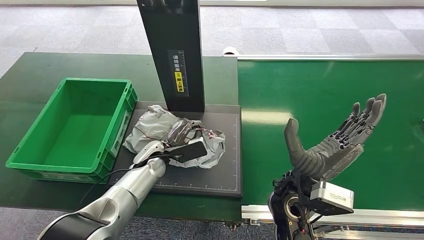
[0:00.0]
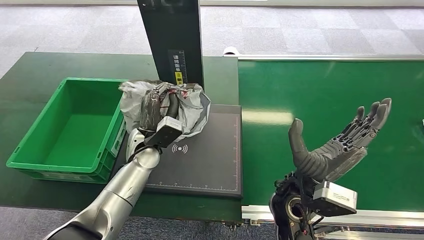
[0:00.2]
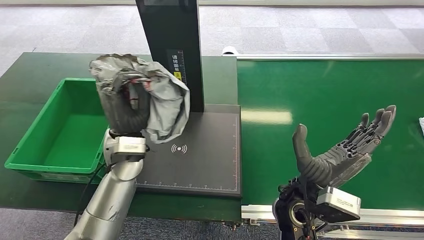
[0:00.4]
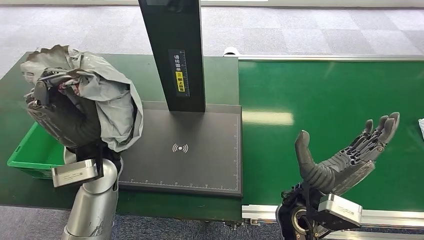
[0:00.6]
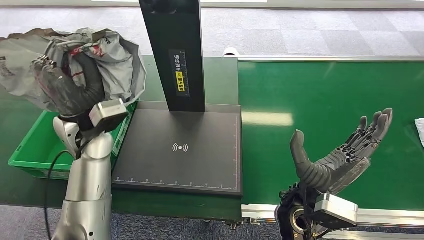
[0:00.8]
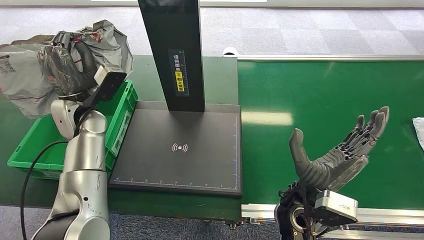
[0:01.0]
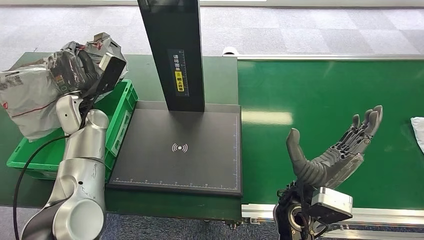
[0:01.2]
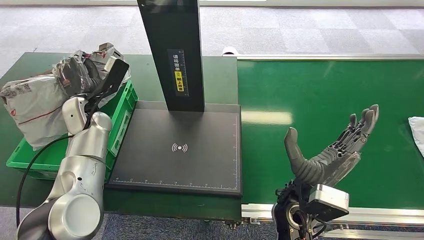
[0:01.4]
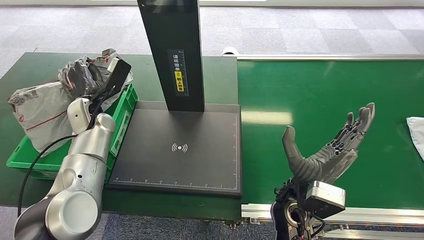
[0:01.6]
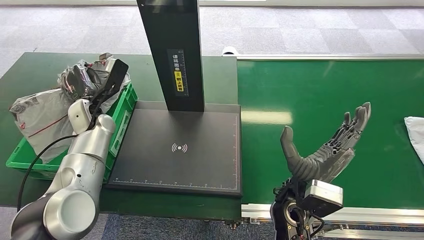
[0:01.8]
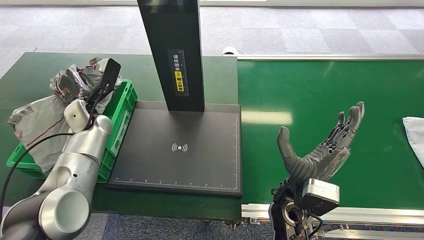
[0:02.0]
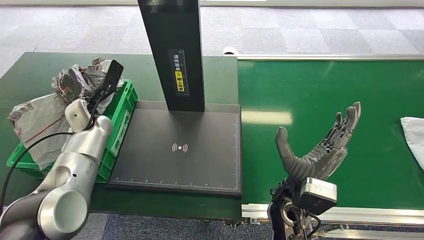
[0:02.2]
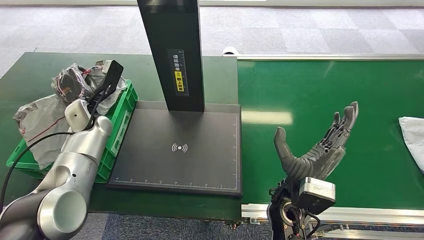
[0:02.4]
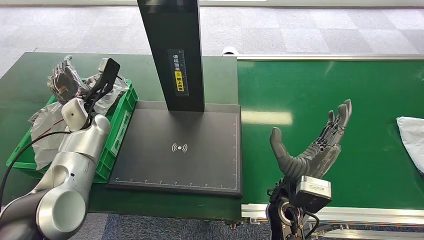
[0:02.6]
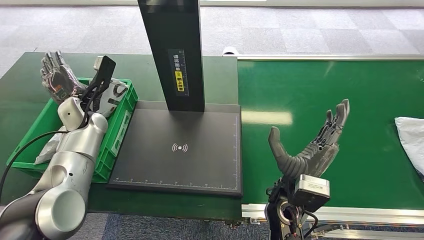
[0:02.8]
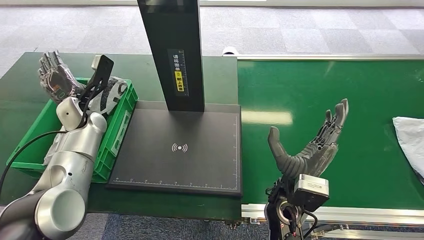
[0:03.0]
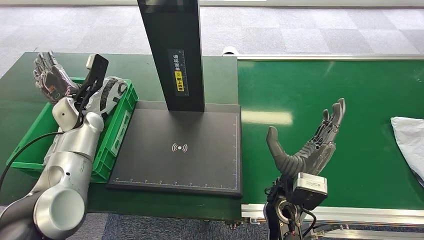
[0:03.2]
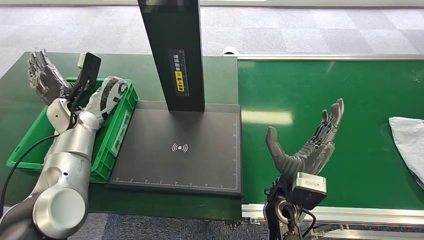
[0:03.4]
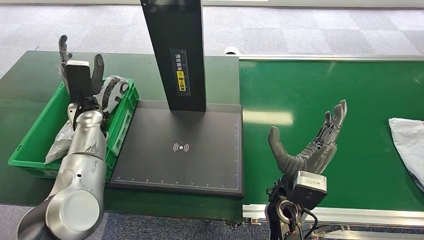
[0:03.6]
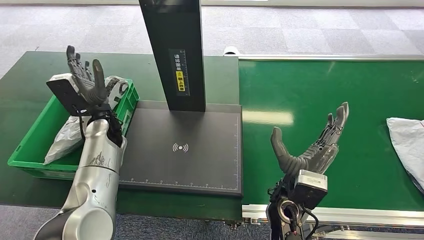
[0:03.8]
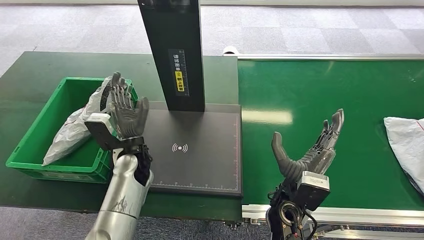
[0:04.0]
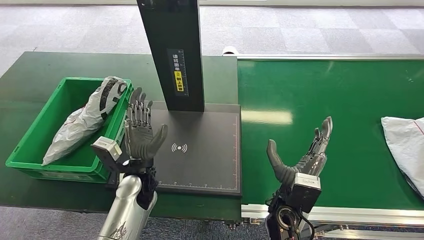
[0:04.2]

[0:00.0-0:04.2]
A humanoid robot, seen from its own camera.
Step, 0:01.0 to 0:04.2: Place the package into the parcel locker.

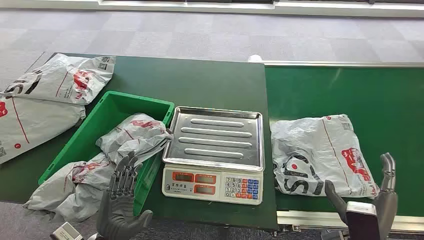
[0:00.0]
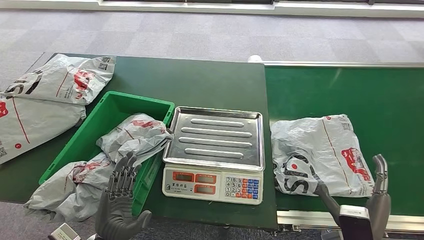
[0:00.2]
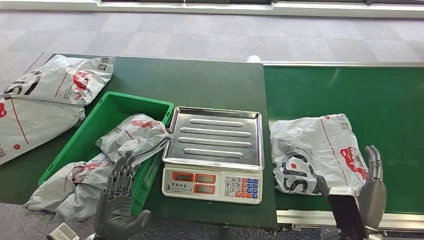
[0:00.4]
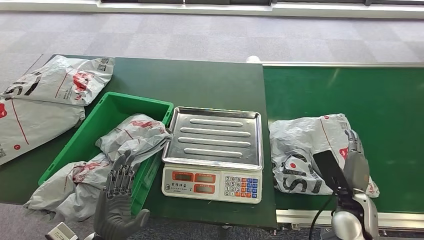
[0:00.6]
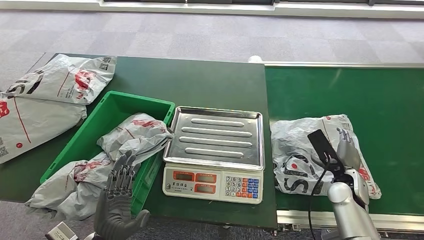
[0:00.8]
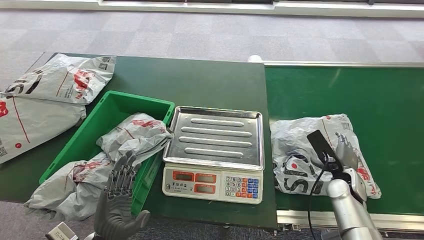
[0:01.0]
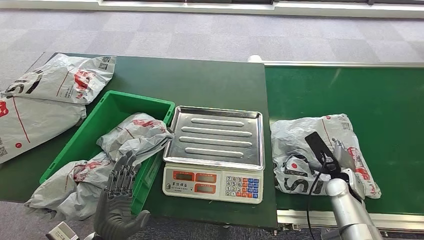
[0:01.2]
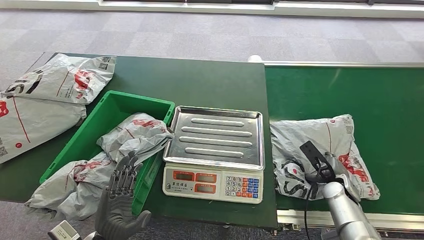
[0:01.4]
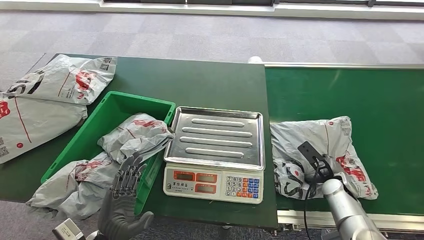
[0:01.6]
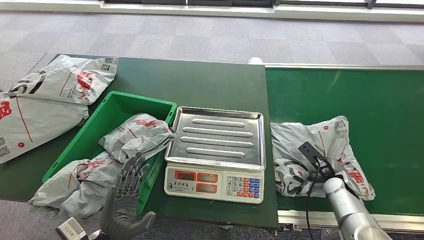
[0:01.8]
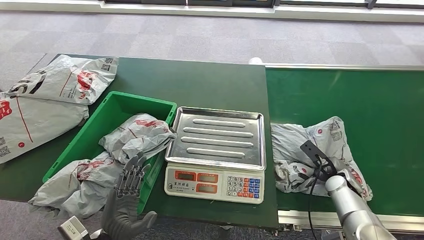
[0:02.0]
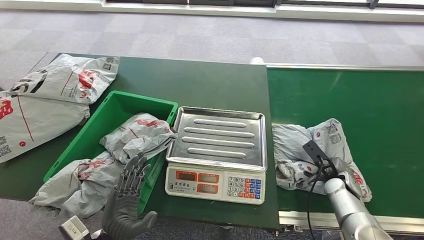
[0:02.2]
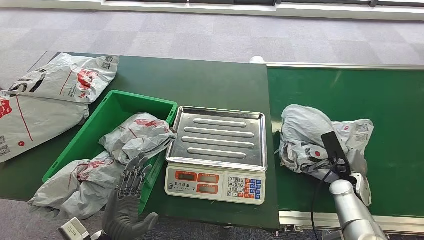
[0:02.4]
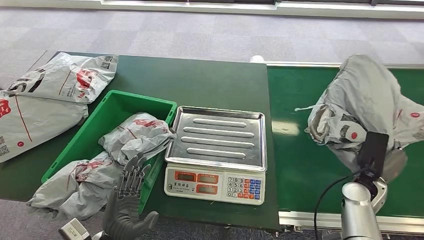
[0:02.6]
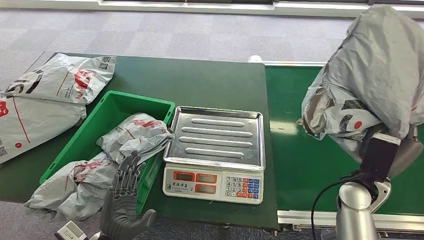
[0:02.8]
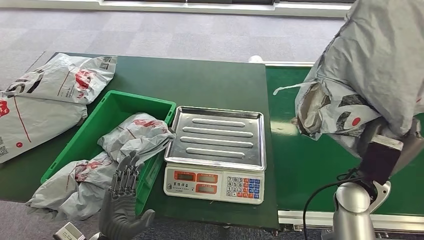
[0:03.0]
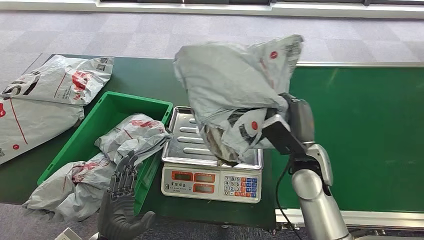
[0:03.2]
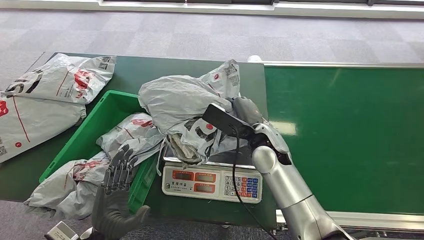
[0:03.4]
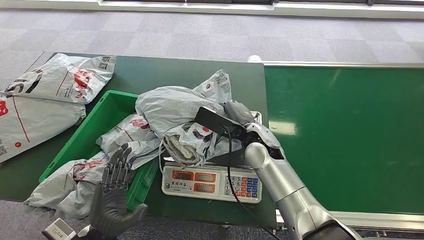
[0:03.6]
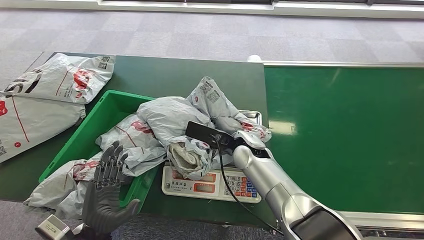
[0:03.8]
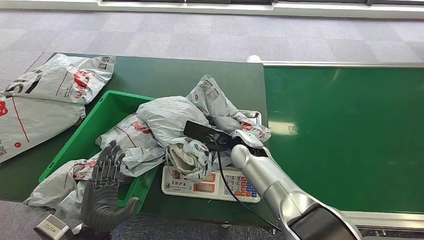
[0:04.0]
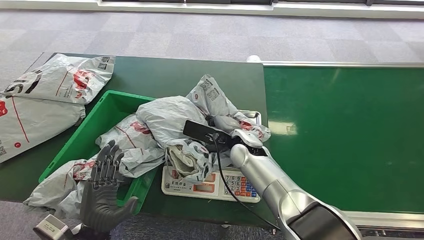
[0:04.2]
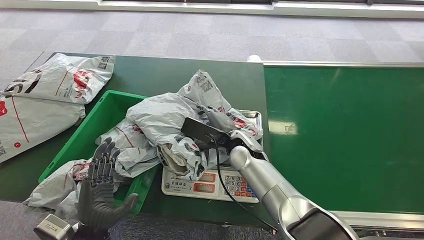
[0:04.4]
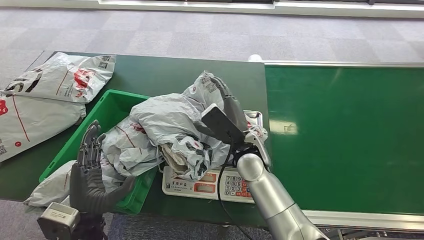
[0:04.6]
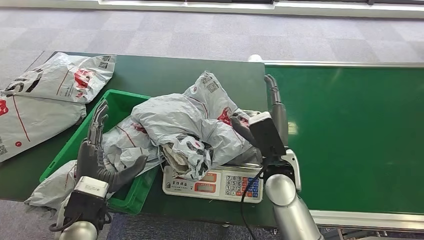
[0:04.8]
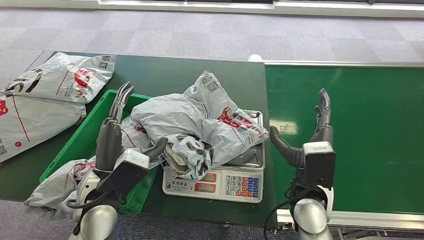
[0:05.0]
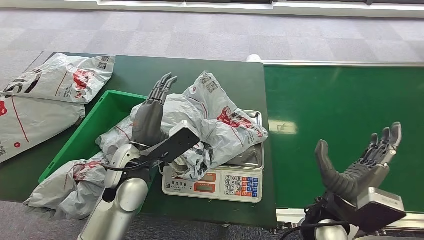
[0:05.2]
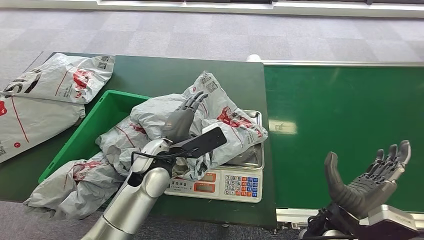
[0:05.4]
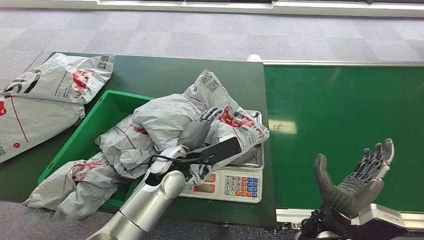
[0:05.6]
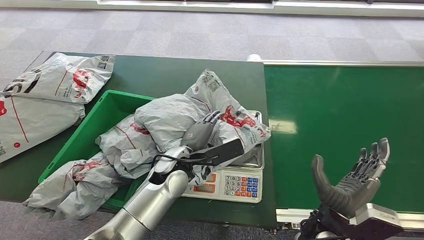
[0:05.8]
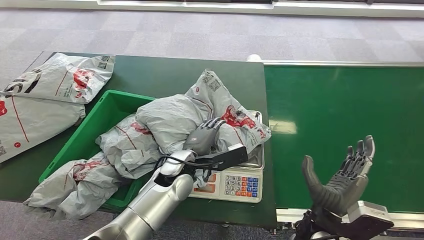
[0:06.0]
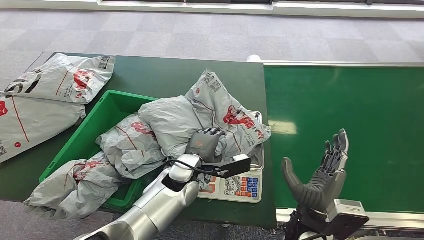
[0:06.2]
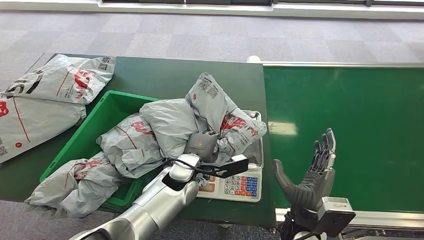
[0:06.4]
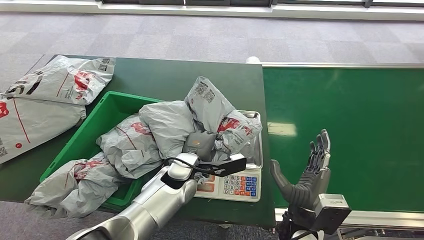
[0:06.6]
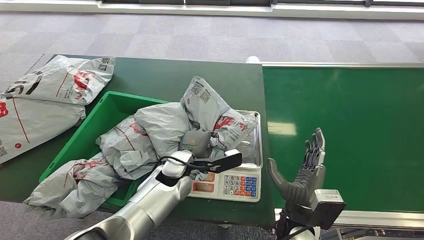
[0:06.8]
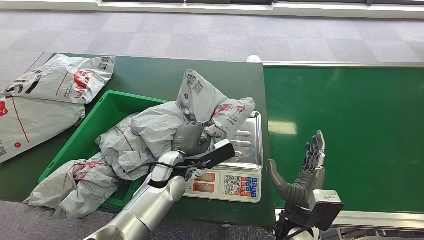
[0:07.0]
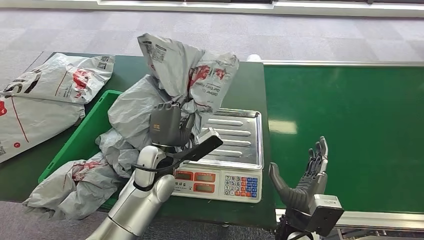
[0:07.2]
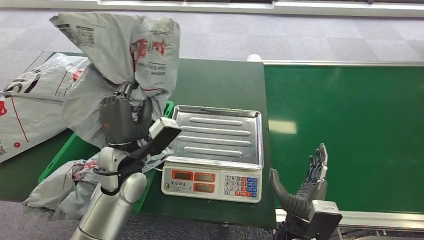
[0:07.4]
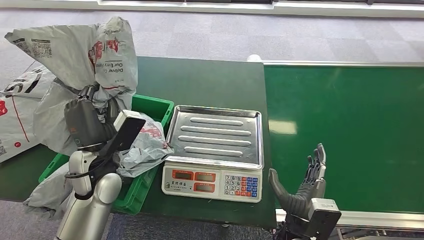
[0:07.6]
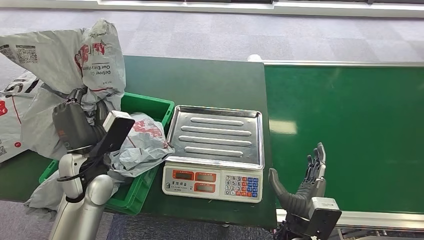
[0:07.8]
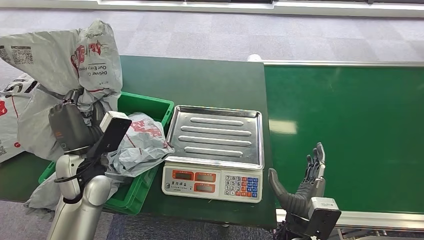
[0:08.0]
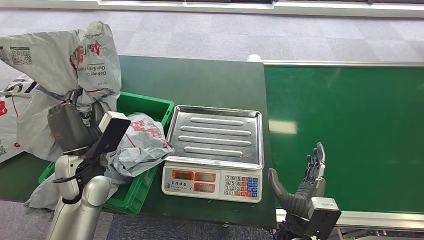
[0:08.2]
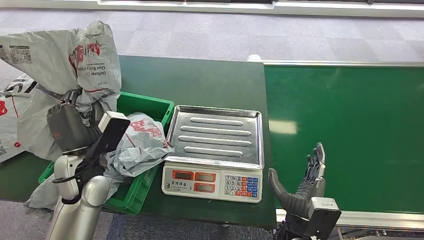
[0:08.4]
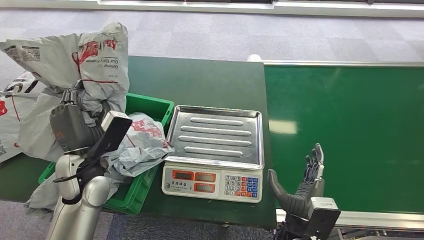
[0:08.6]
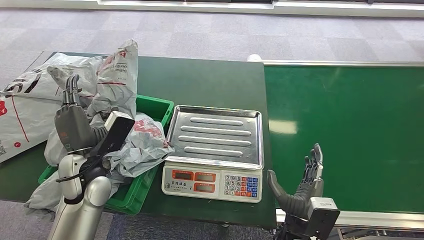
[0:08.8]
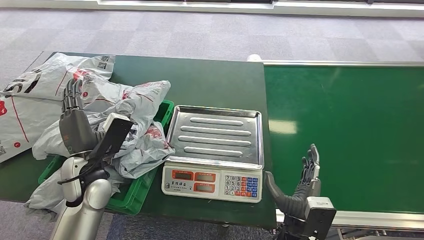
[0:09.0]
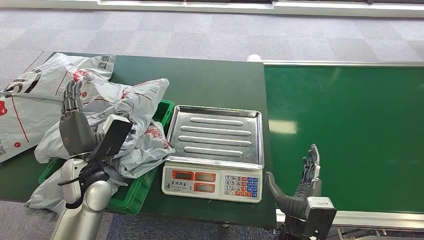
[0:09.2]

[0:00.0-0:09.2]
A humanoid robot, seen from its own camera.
Step, 0:00.0 to 0:03.2: Pick up the package from the conveyor belt.
Step, 0:03.4 to 0:06.0: Place the package onto the inbound machine.
Step, 0:06.4 to 0:08.4: Pick up the package from the inbound machine.
Step, 0:08.6 to 0:09.2: Place the package into the parcel locker.
0:07.6 to 0:09.2: The hands move only a little.

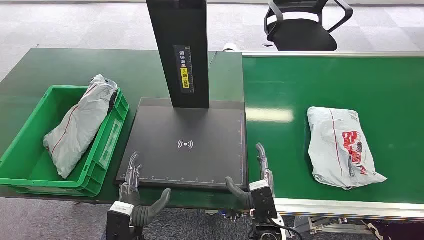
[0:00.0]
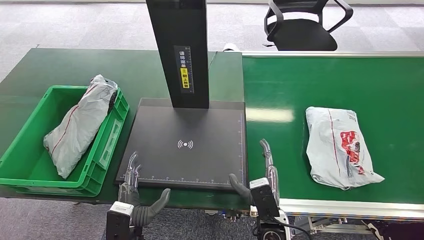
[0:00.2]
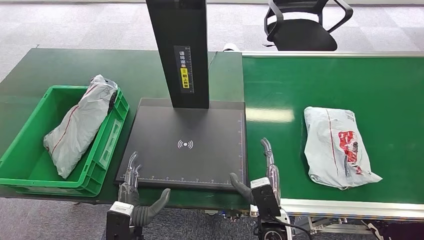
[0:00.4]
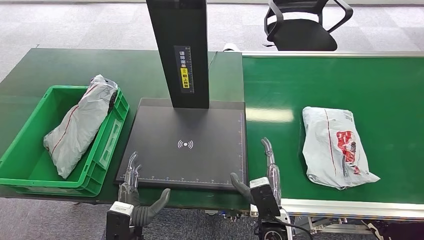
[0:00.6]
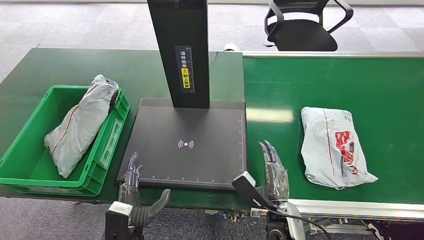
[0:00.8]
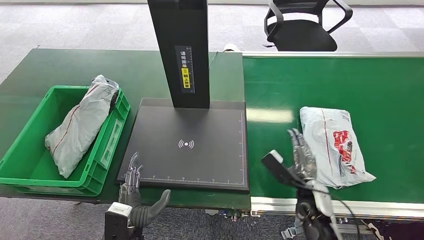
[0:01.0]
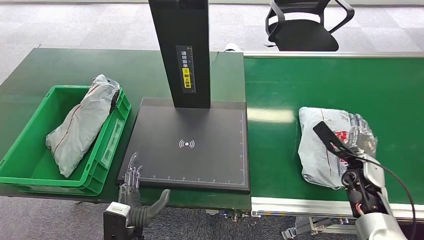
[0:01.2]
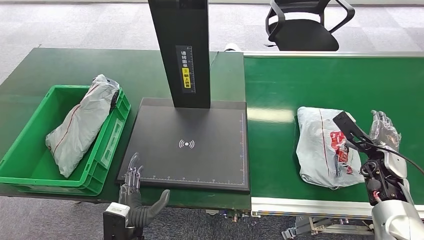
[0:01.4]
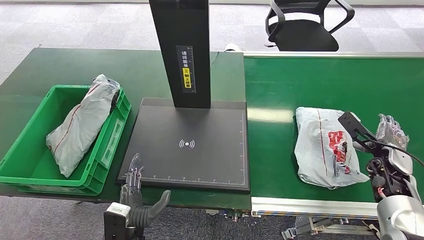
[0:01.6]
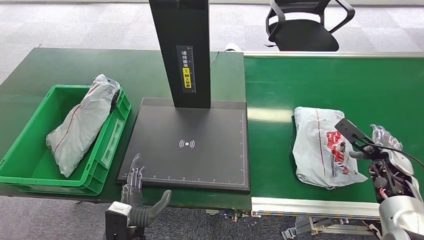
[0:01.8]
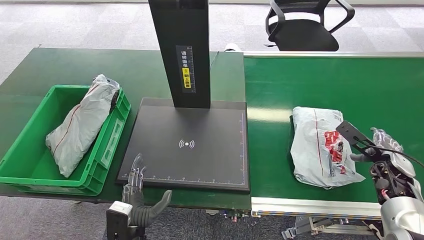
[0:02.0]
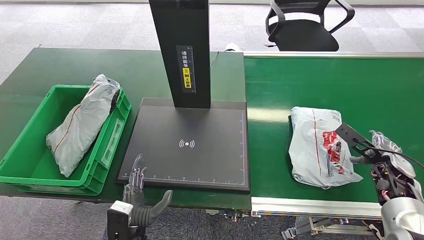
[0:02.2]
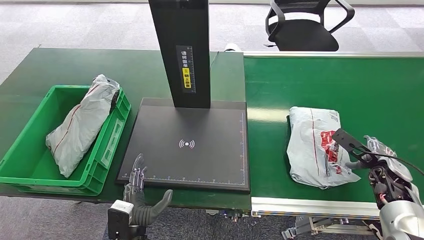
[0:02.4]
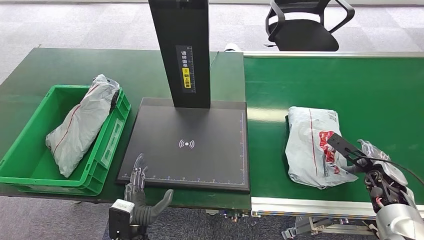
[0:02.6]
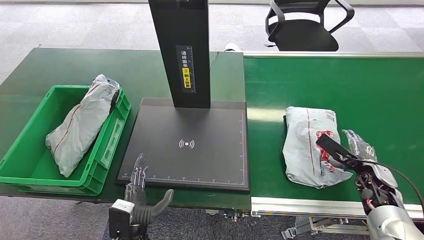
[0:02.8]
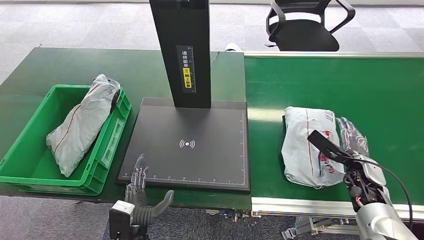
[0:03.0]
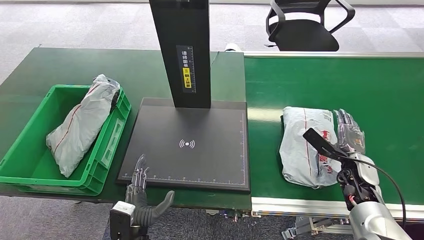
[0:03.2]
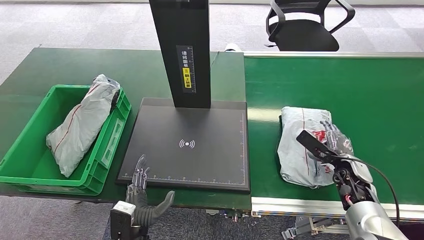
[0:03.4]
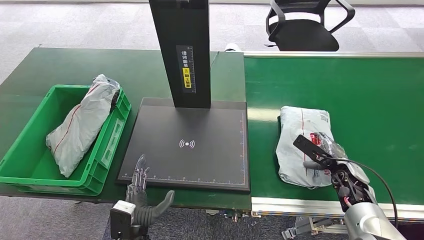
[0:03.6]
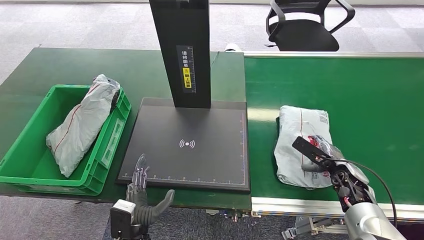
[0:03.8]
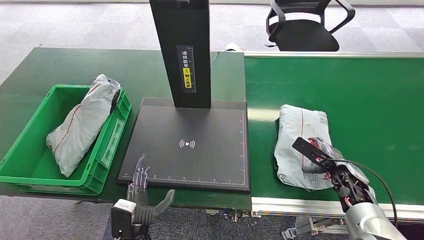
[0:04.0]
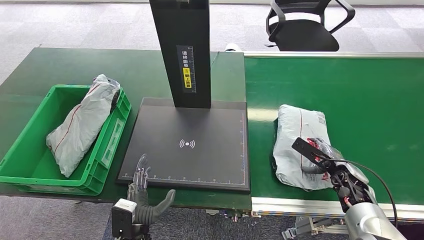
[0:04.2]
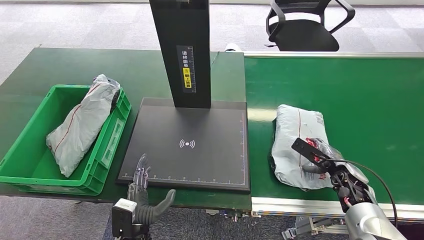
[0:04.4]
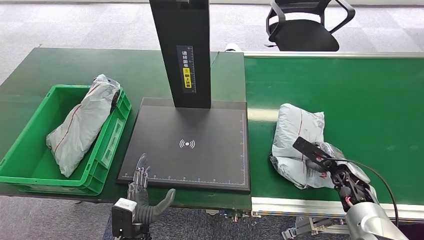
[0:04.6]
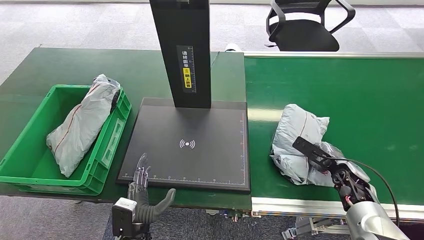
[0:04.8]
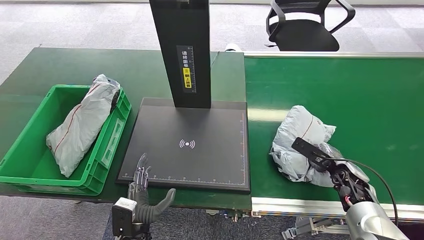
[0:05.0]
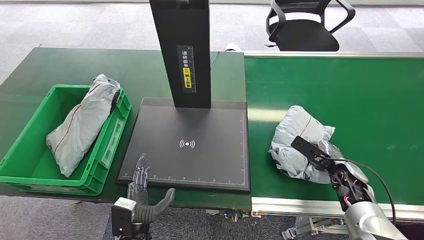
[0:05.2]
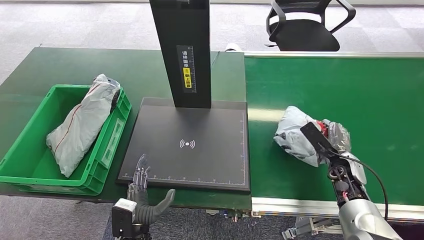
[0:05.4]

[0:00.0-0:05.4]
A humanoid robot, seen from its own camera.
0:02.8 to 0:04.0: The right hand heads to the left, covering roughly 5 cm.
